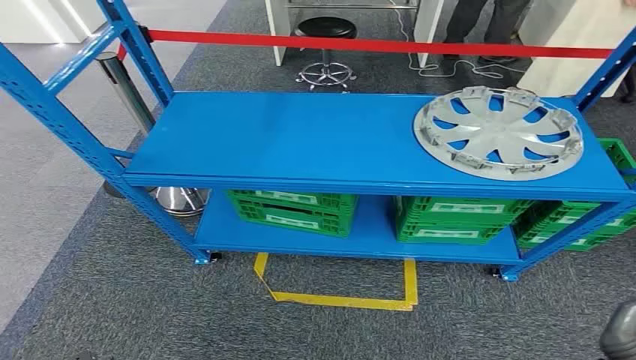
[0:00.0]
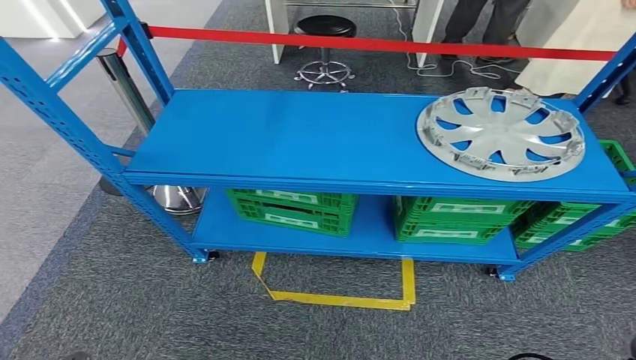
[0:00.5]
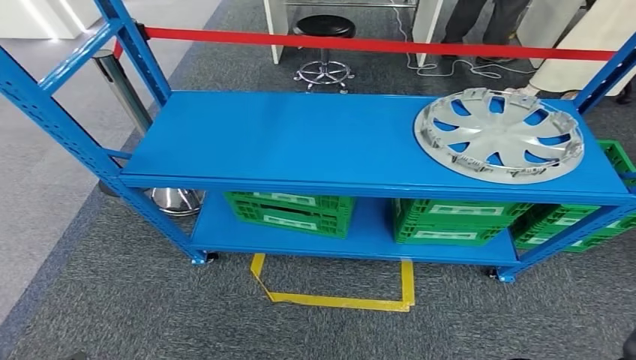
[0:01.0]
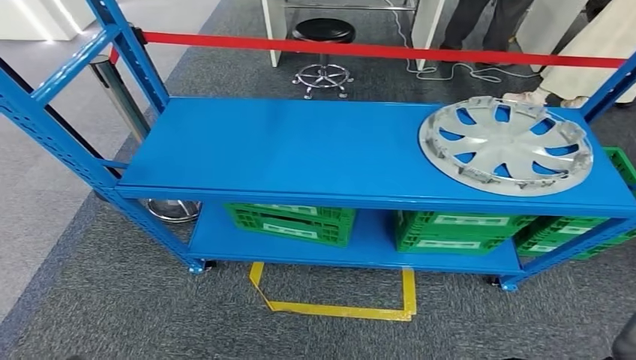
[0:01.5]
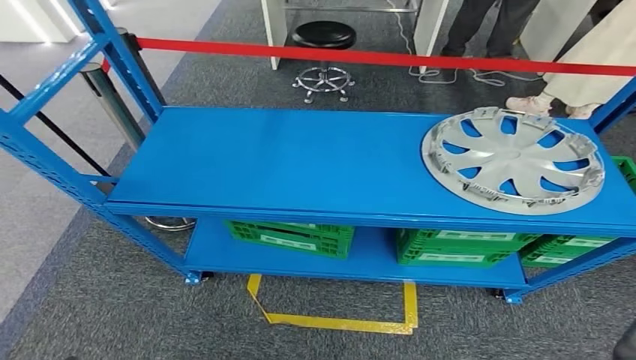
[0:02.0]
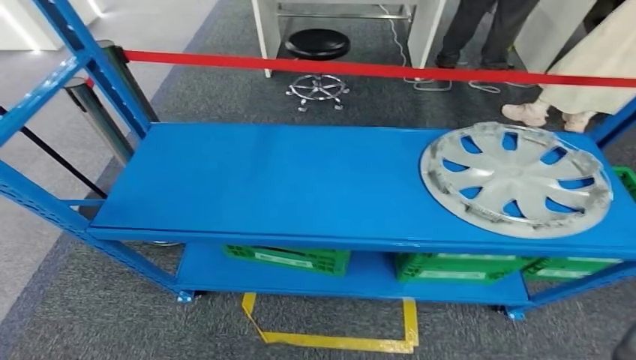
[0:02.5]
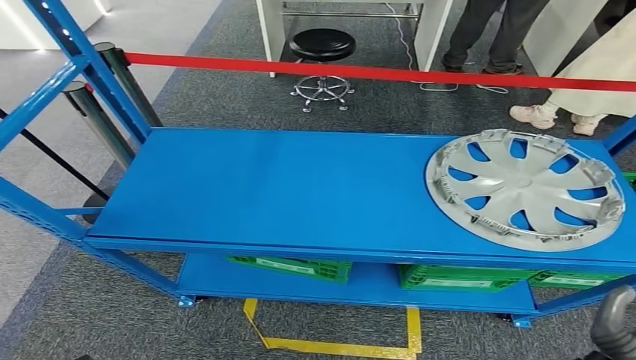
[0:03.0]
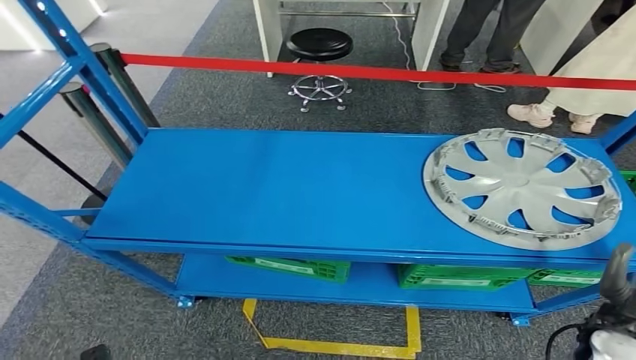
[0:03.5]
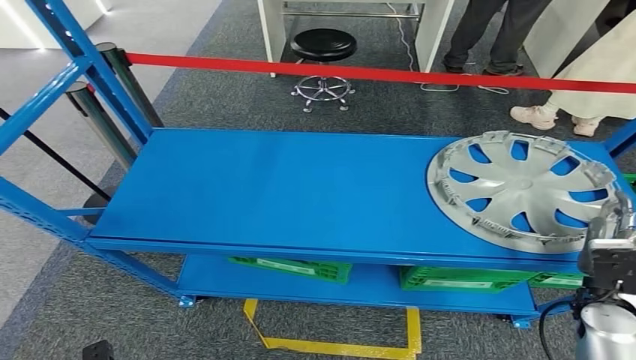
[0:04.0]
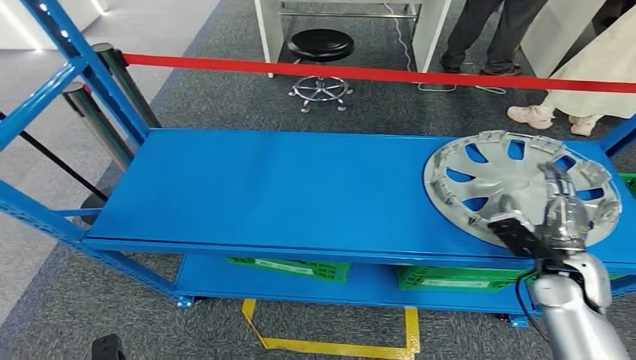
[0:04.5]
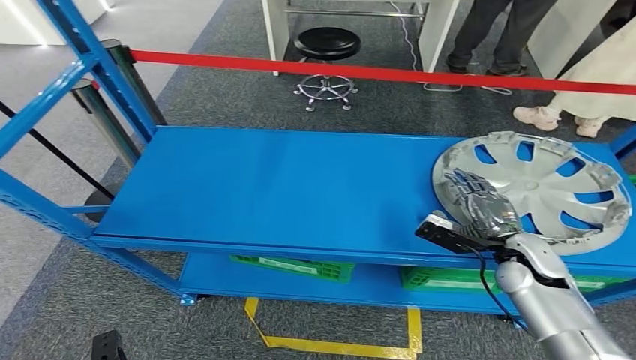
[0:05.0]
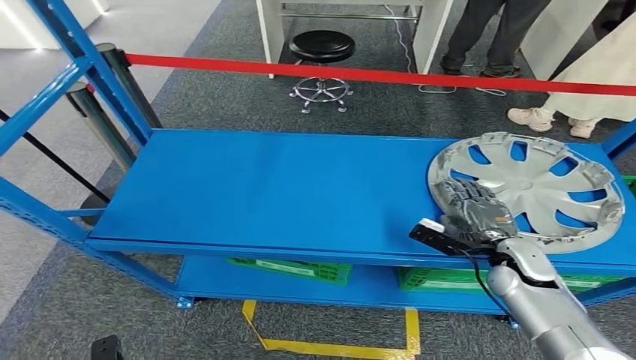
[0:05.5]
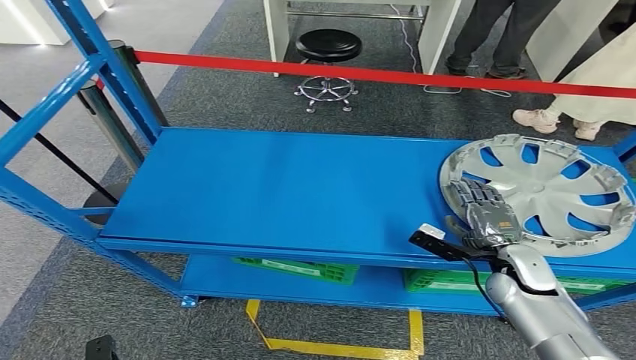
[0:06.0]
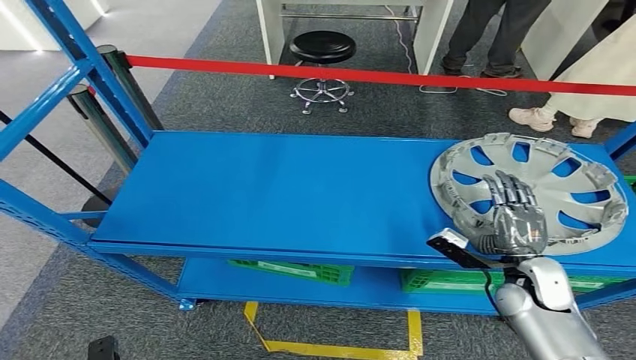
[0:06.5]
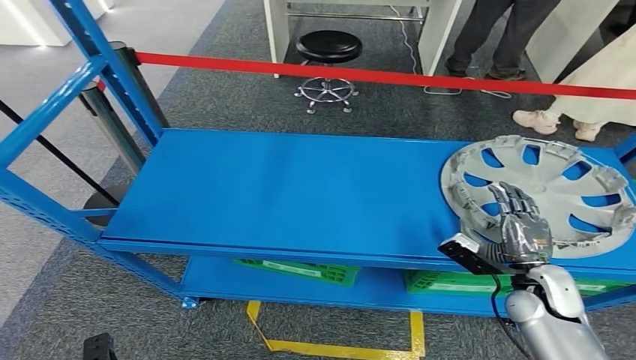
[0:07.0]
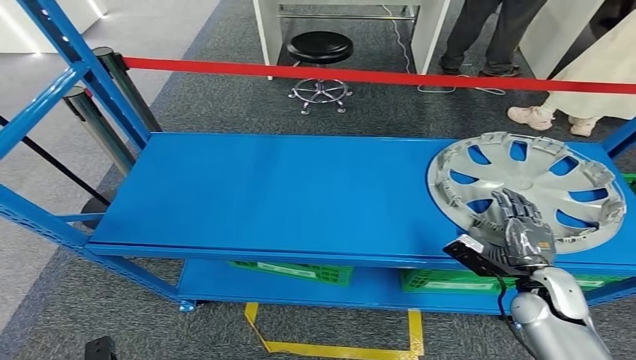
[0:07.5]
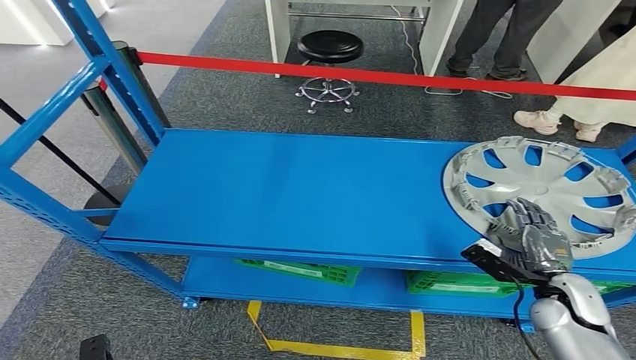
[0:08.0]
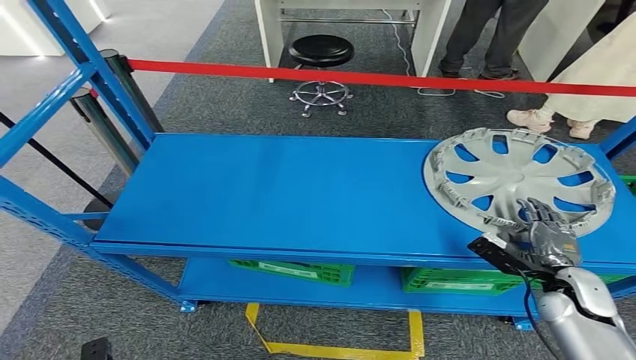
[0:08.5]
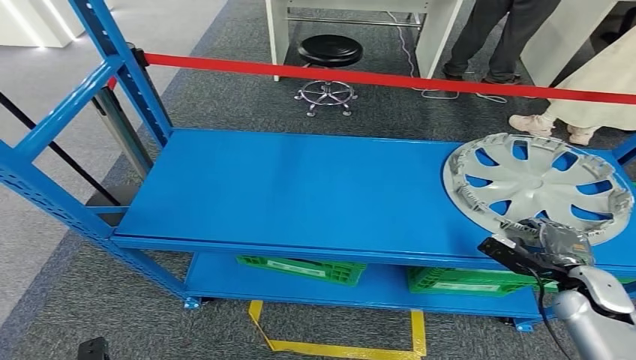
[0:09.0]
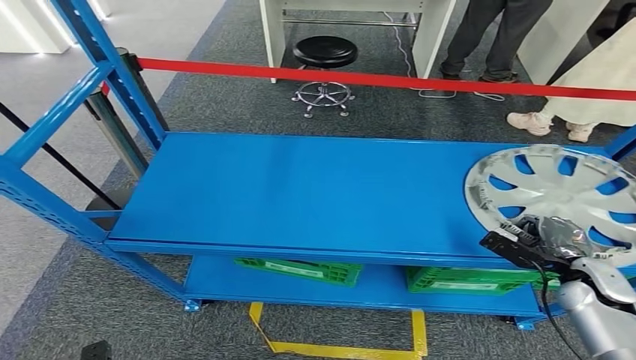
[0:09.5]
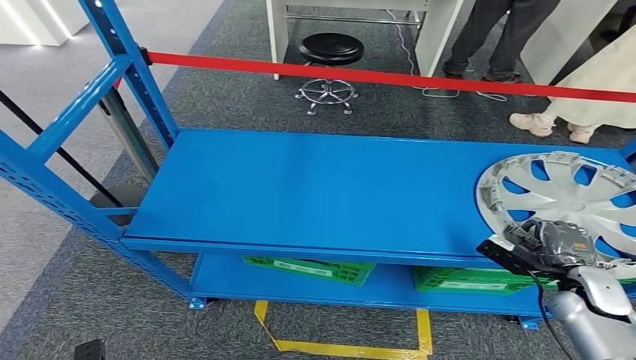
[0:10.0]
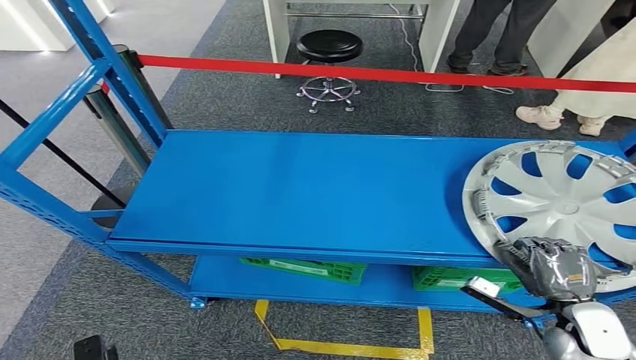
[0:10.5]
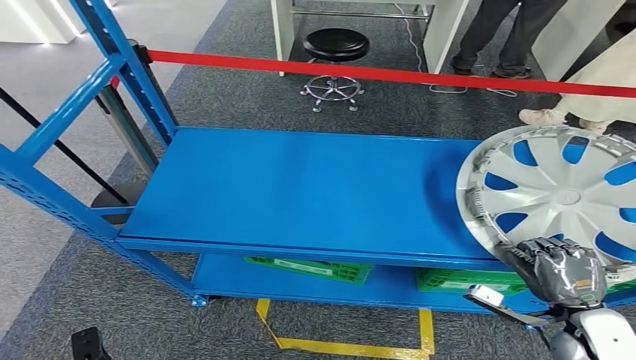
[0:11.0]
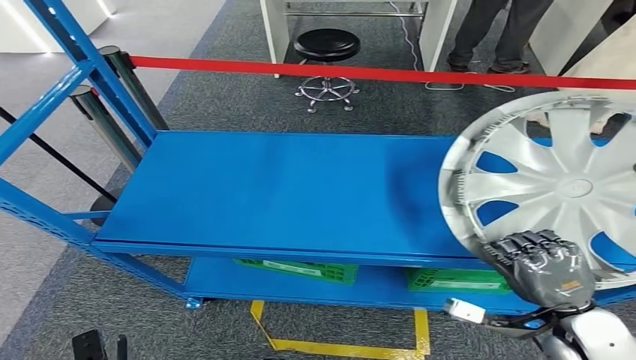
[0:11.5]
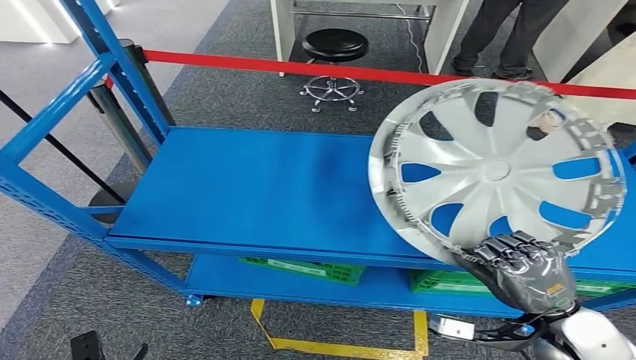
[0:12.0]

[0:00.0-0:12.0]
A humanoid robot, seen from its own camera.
0:06.0 to 0:08.0: The right hand travels to the right and backward by about 10 cm.

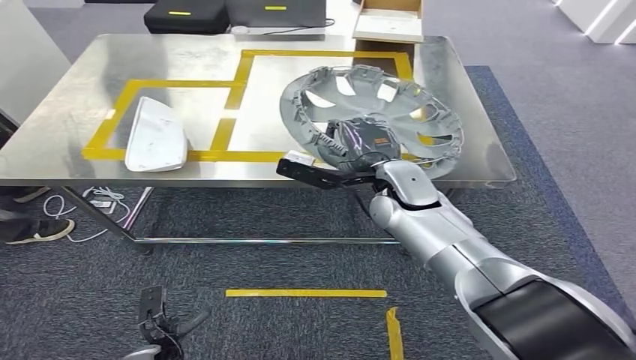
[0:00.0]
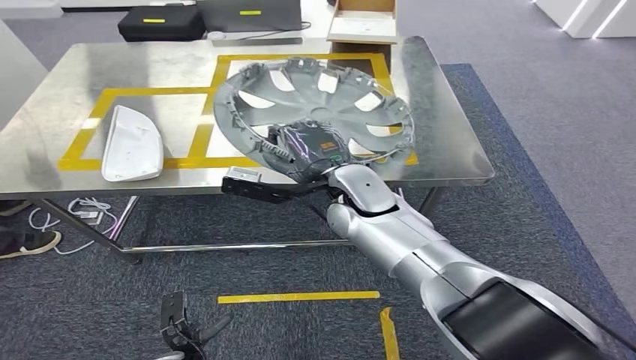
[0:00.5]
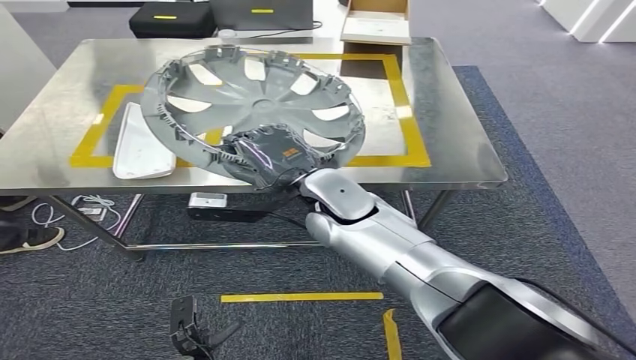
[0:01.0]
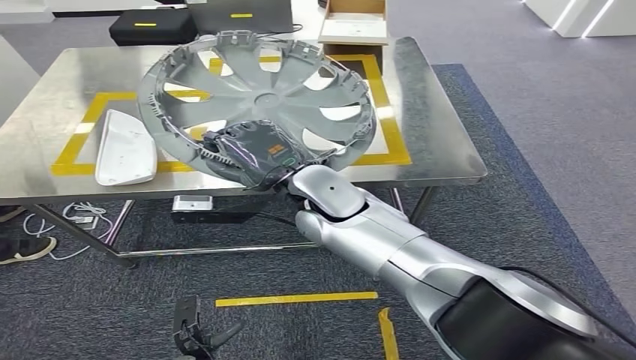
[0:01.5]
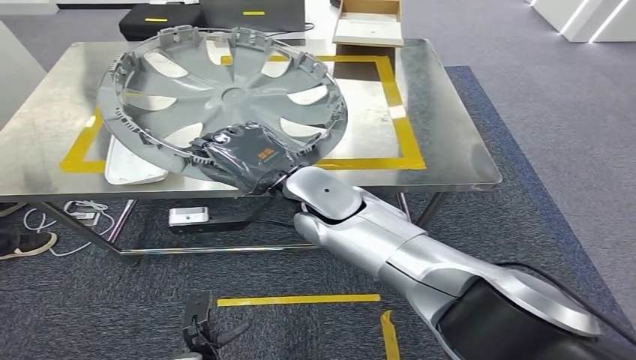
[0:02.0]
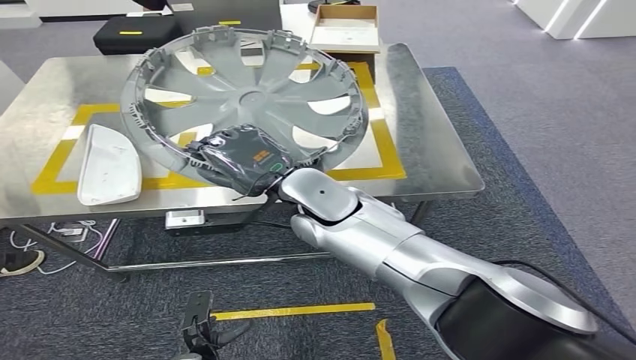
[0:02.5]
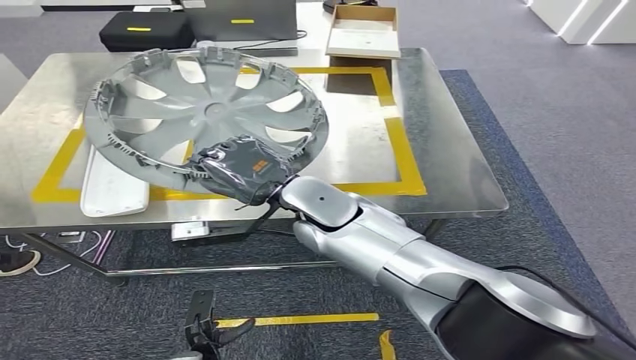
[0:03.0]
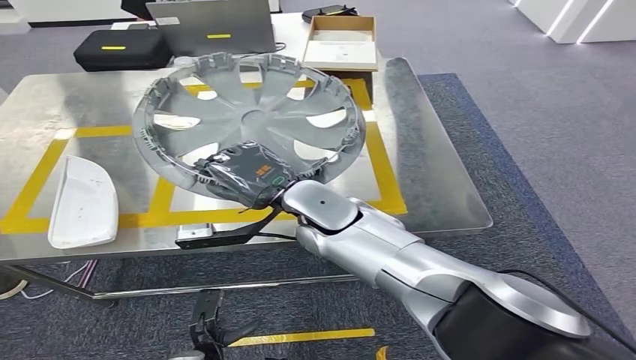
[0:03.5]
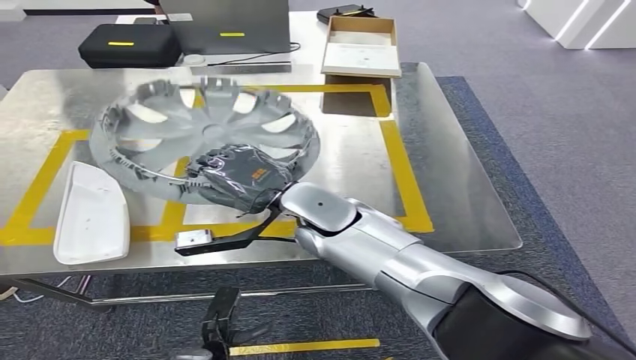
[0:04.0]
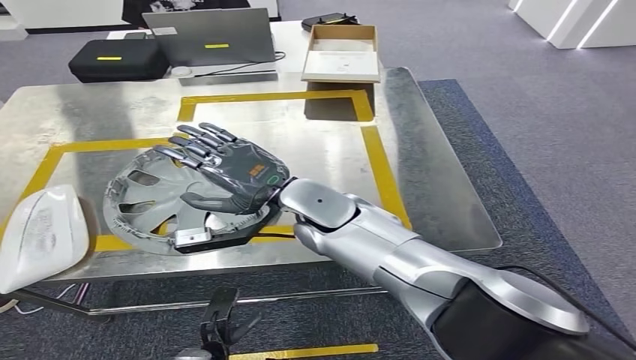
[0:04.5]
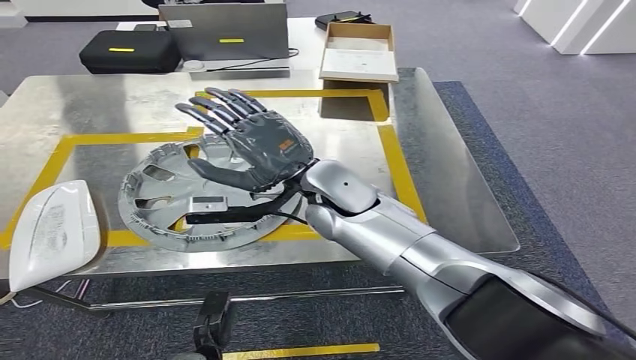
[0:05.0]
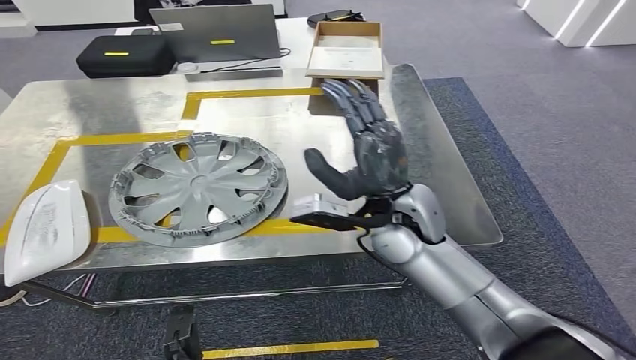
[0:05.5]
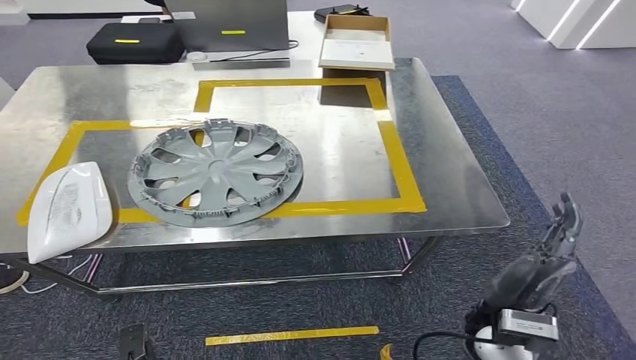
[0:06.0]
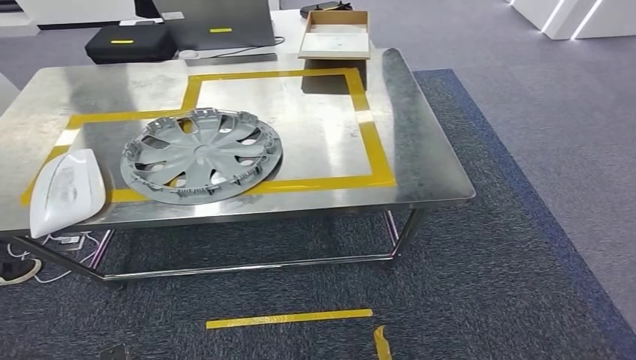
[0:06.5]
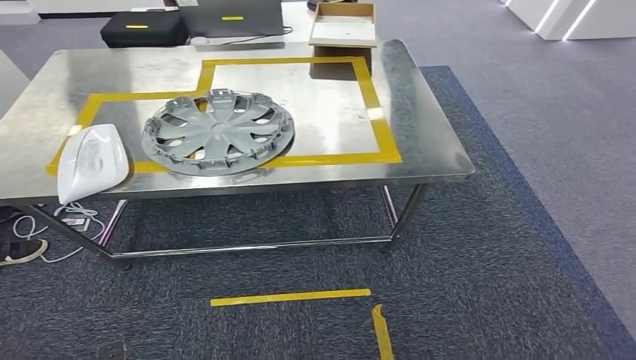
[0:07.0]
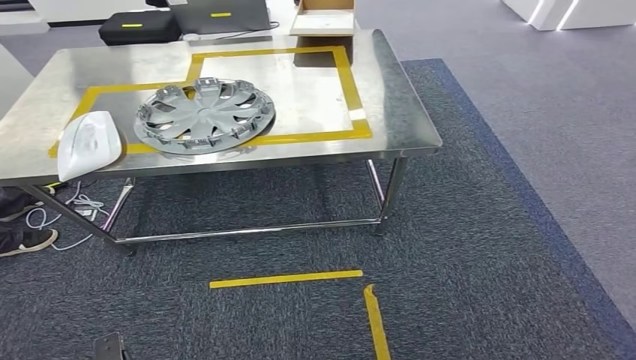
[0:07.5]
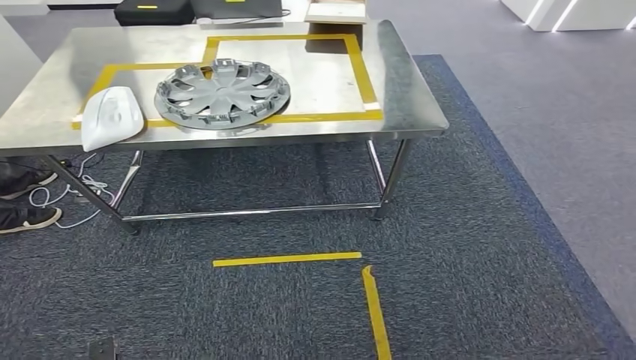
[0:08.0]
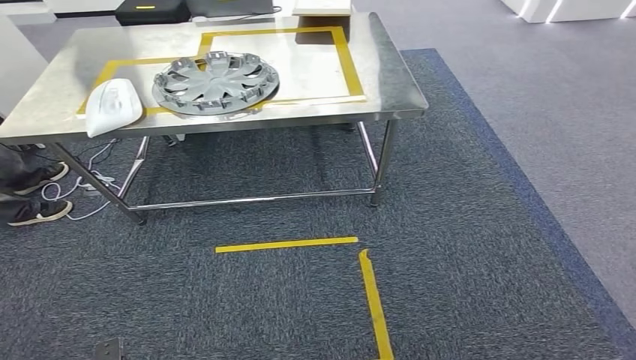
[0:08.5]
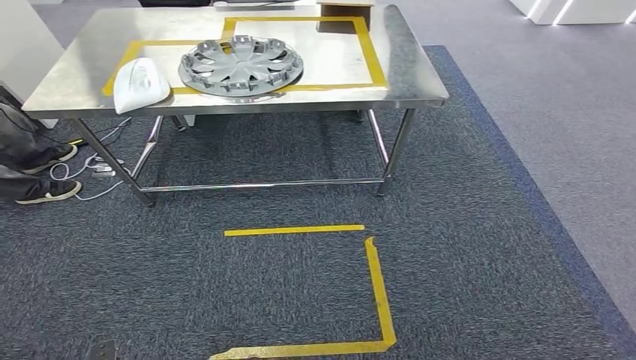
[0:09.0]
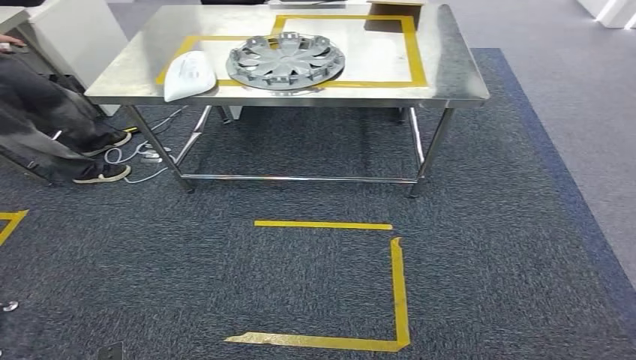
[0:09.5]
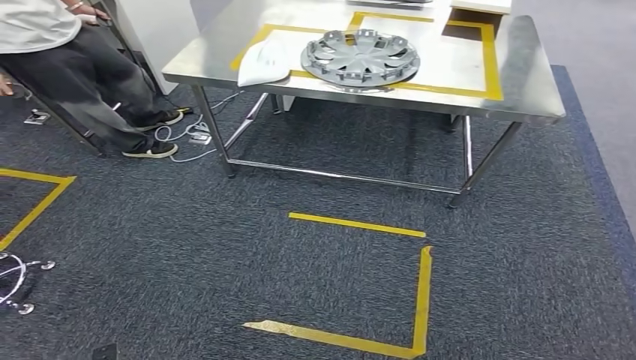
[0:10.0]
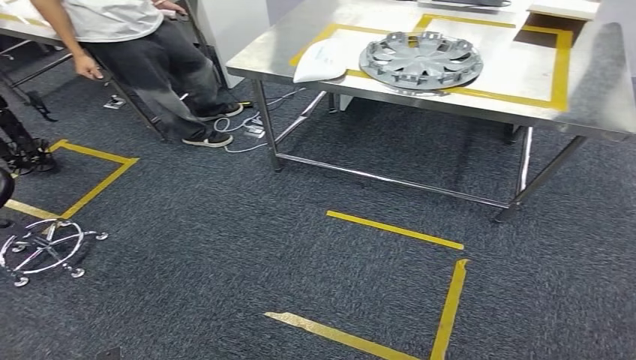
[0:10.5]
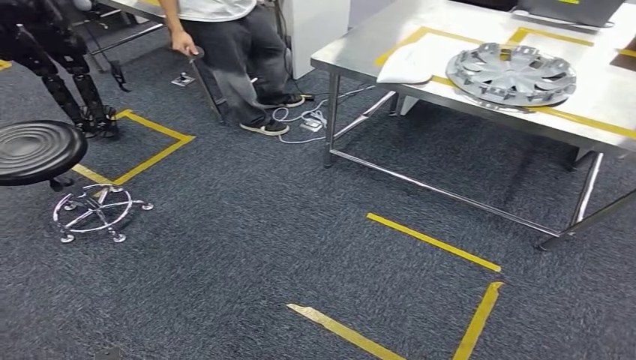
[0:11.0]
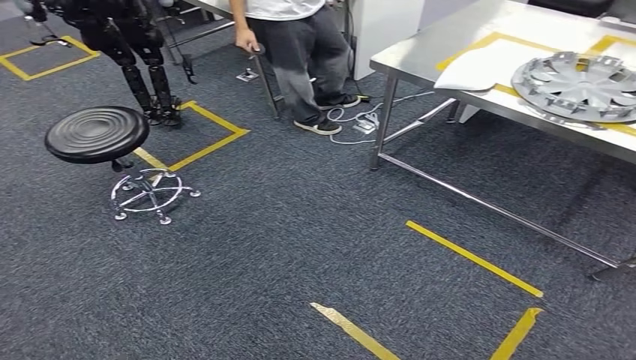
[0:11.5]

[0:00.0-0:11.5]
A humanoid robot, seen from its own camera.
Step, 0:00.0 to 0:03.5: Move the small component to the workbench.
Step, 0:04.0 to 0:06.5: Insert the small component into the corresponding slot on the workbench.
